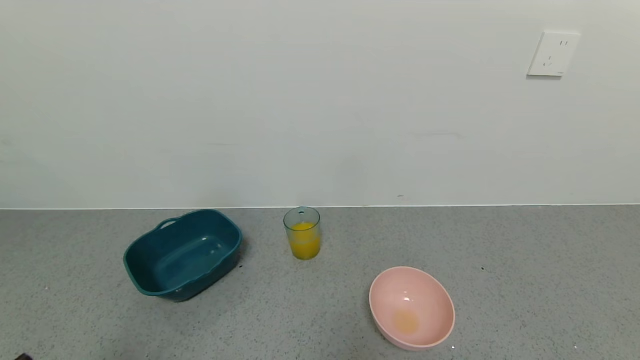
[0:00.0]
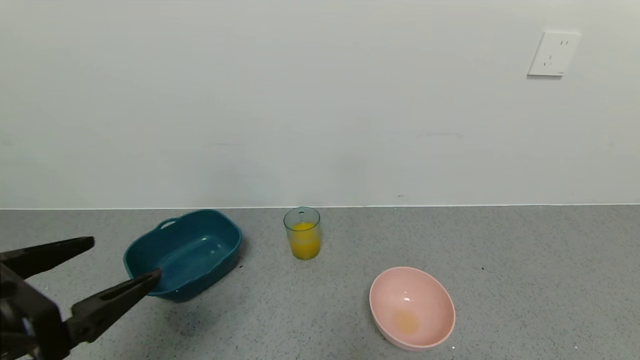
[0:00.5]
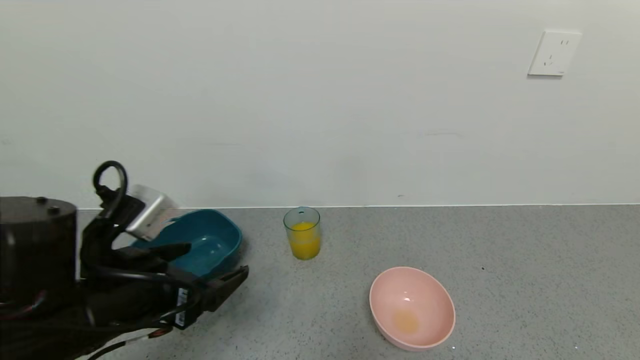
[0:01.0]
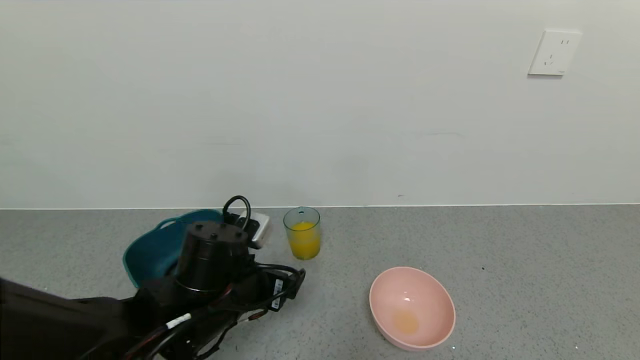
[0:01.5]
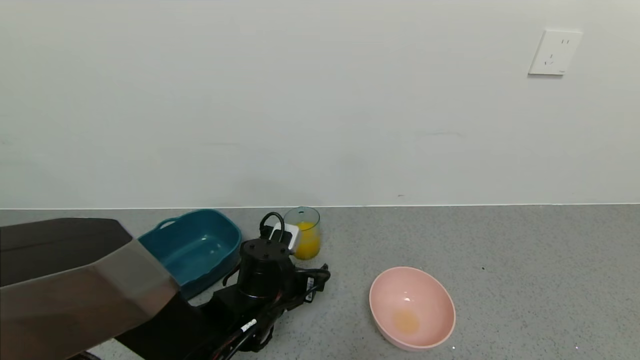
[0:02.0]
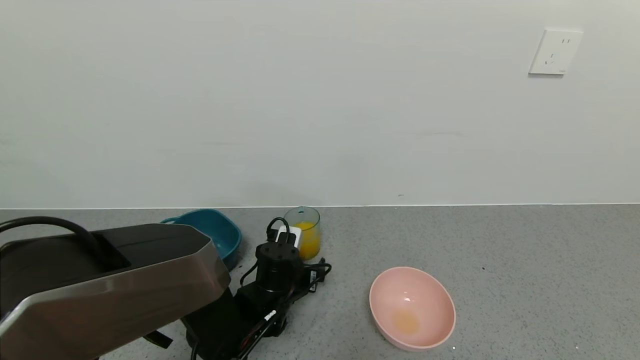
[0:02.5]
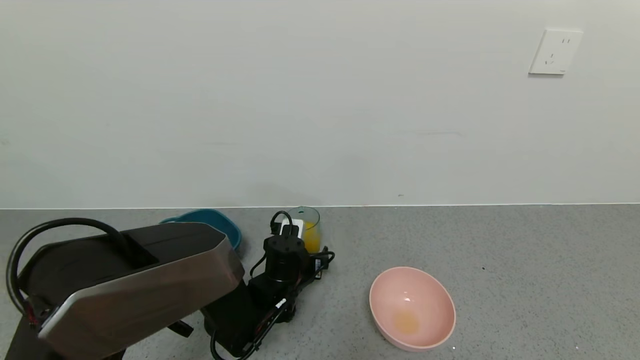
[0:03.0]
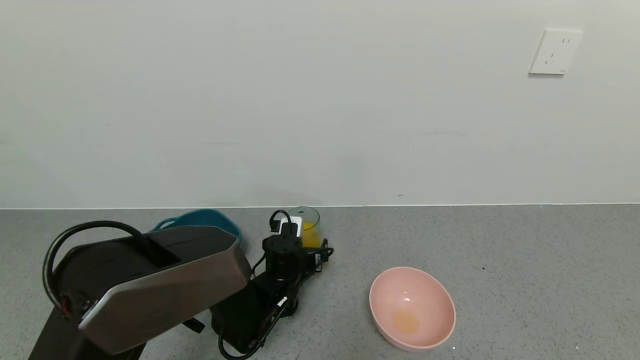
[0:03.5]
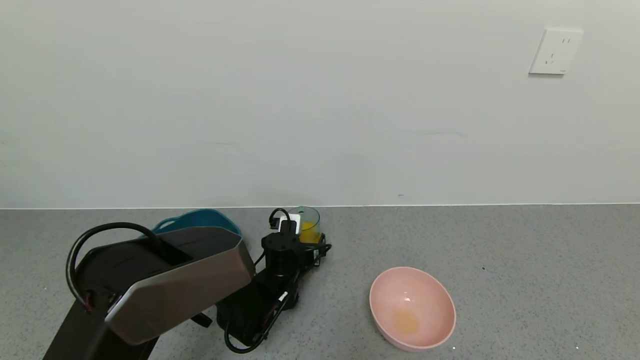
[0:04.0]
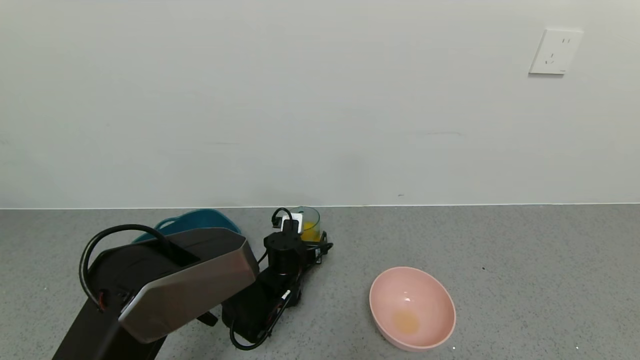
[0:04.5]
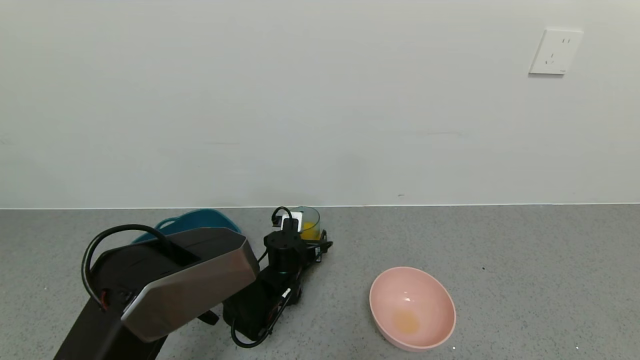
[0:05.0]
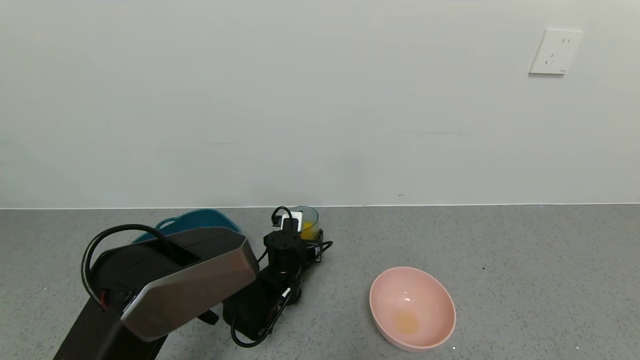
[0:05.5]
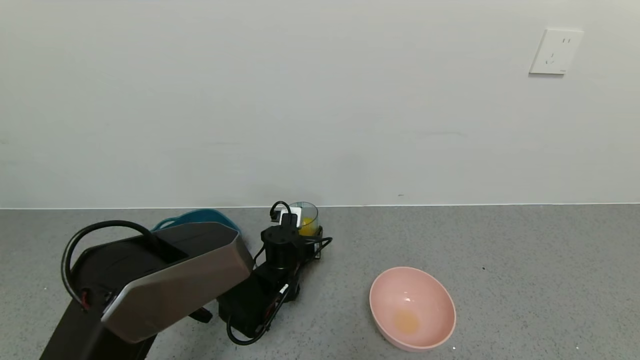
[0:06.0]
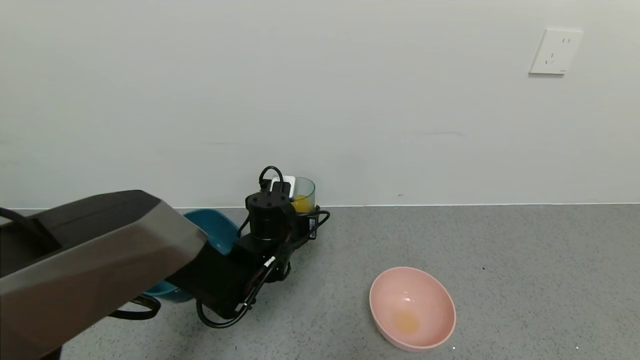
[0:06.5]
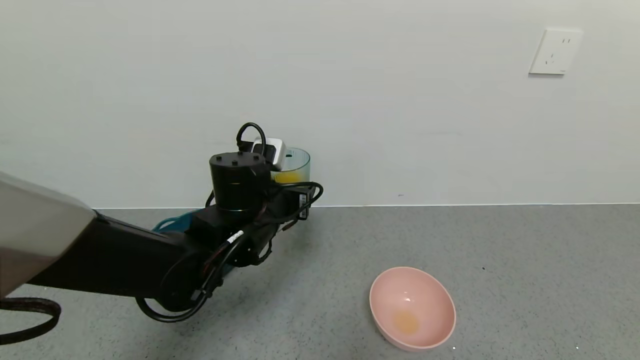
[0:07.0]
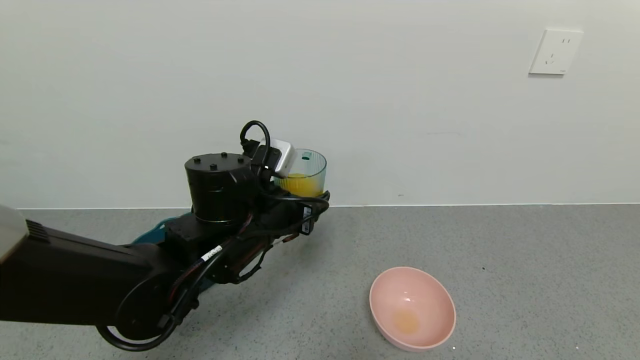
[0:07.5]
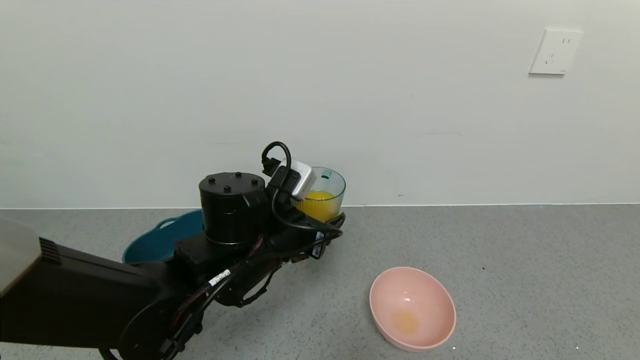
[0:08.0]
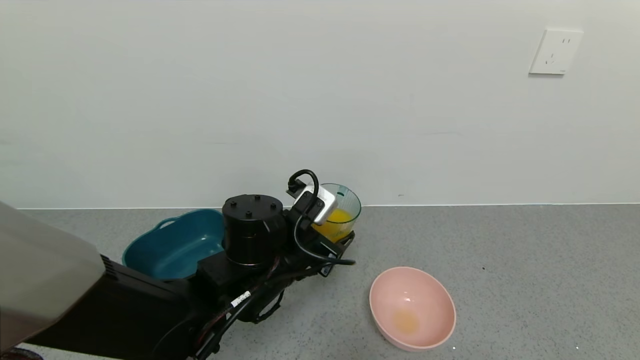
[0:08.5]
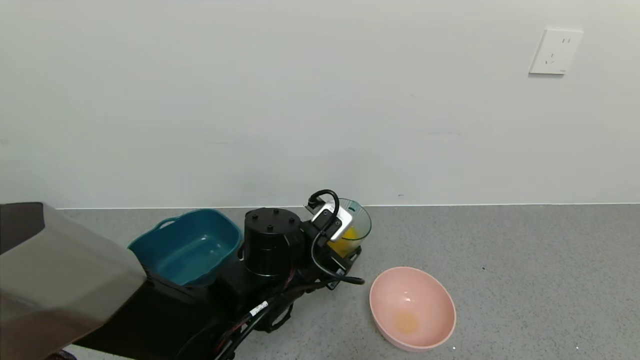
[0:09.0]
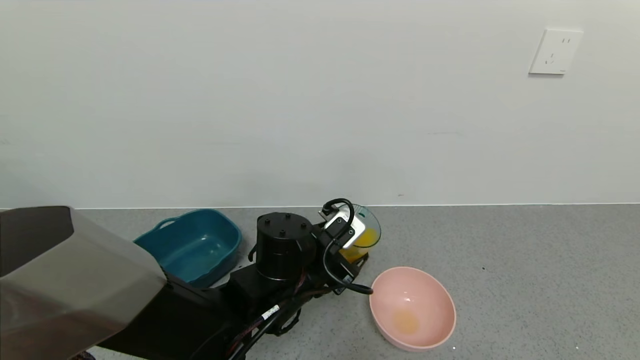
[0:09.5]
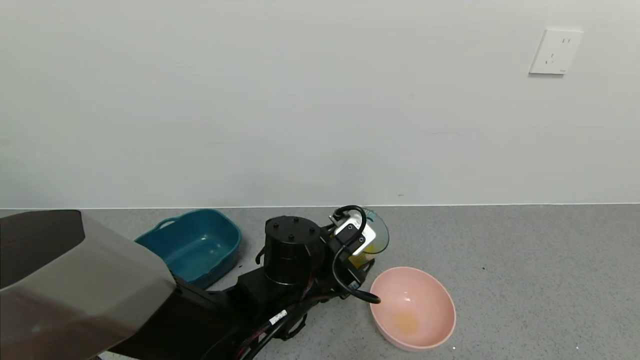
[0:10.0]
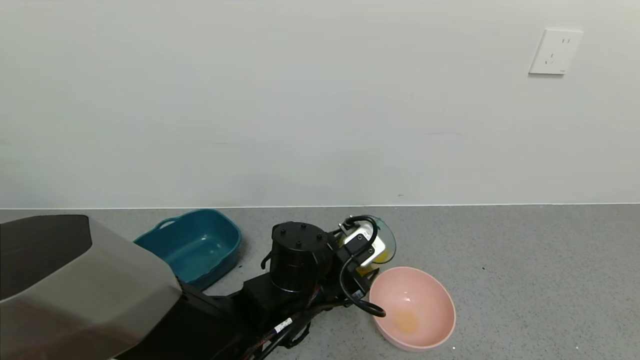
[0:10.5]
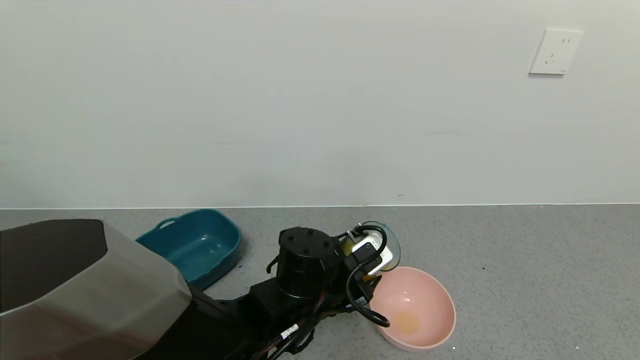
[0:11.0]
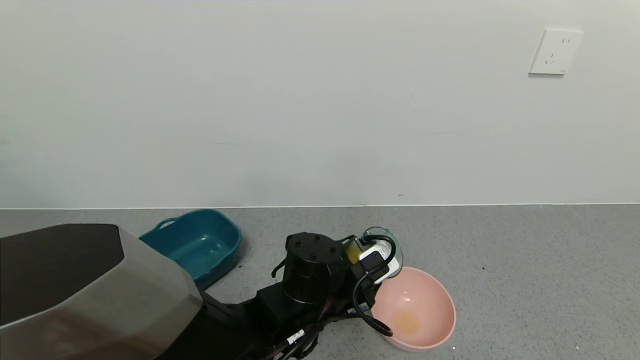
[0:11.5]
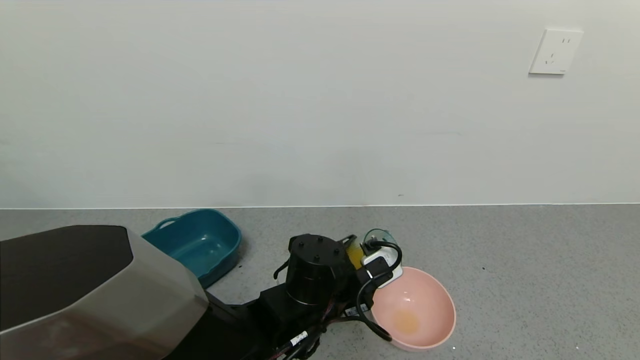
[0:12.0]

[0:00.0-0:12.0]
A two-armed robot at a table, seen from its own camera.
Task of the whole recording: use a gripper to pick up the cup and pour the liquid into a bowl or tray.
Step, 0:00.0 to 0:05.5: Grasp the glass of orange juice with the left gripper.
0:00.0 to 0:02.0: The left gripper travels forward, to the right and downward by roughly 35 cm.
0:02.0 to 0:04.0: The left gripper is displaced forward and downward by approximately 10 cm.
0:04.0 to 0:06.0: The left gripper closes up.
0:06.0 to 0:08.0: The left gripper heads upward and backward, covering about 20 cm.
0:08.0 to 0:10.0: The left gripper heads downward, covering about 5 cm.
0:10.0 to 0:12.0: There are only small adjustments of the grippers.

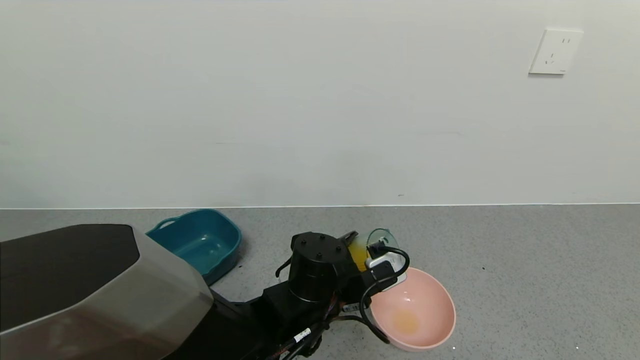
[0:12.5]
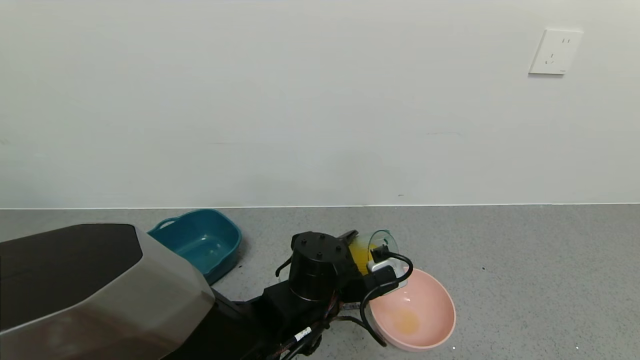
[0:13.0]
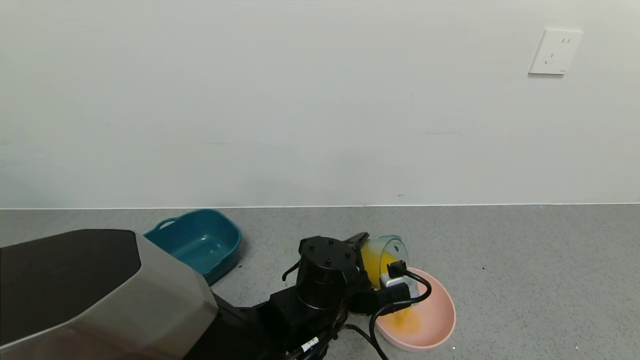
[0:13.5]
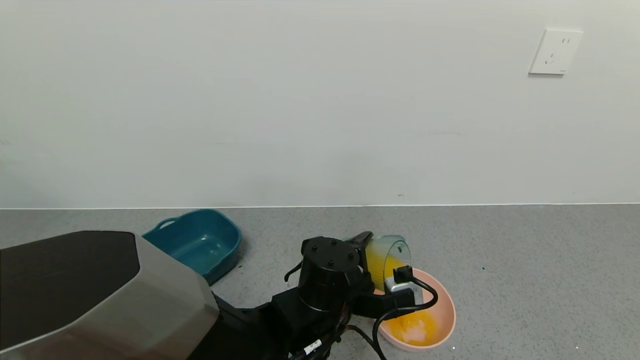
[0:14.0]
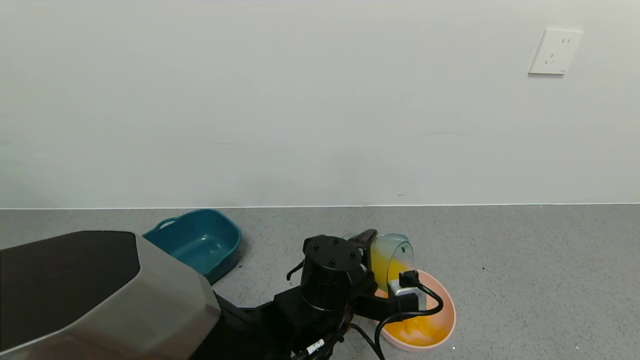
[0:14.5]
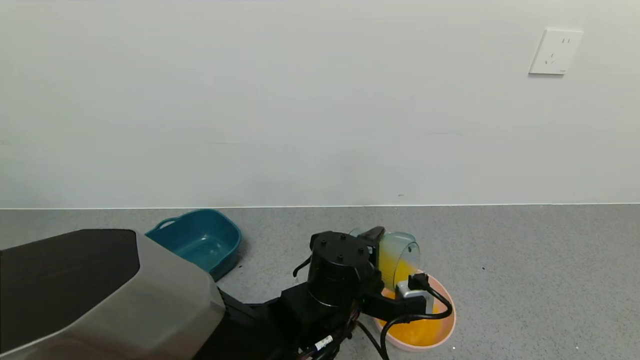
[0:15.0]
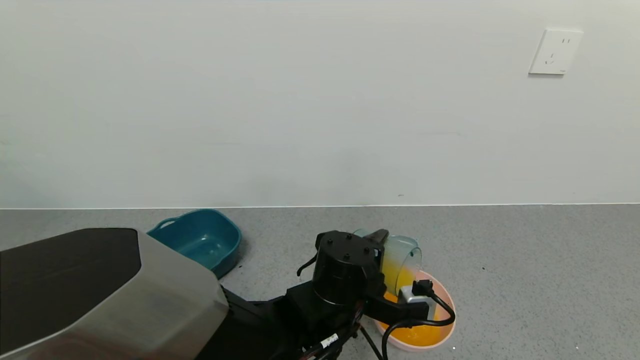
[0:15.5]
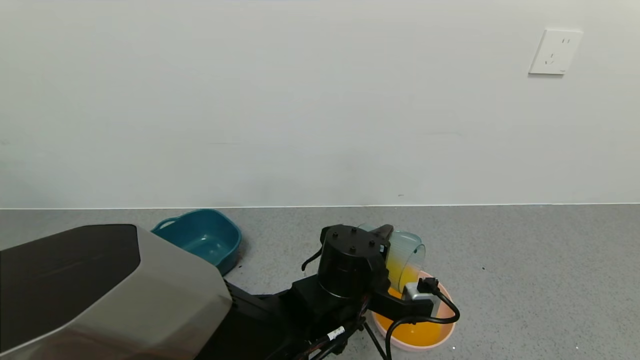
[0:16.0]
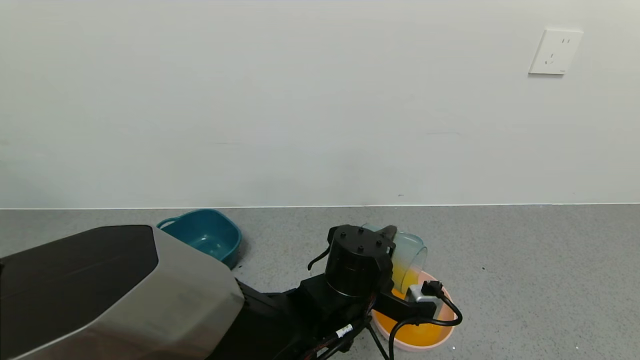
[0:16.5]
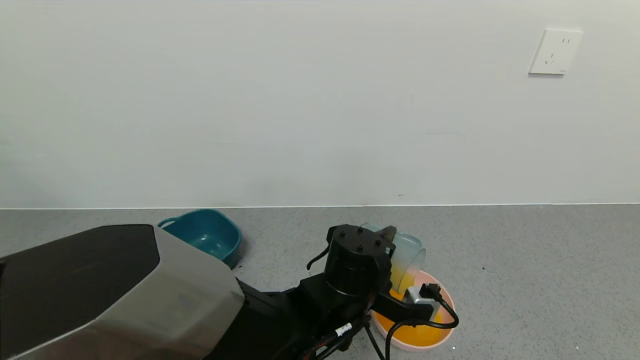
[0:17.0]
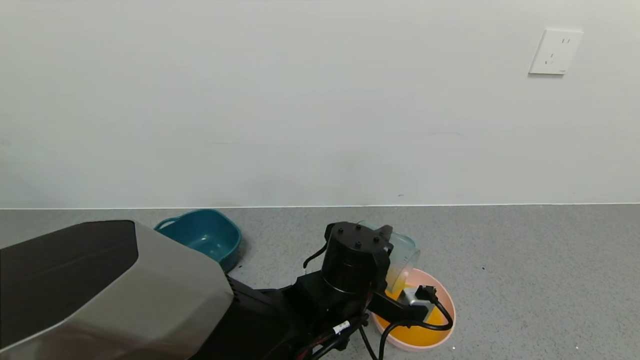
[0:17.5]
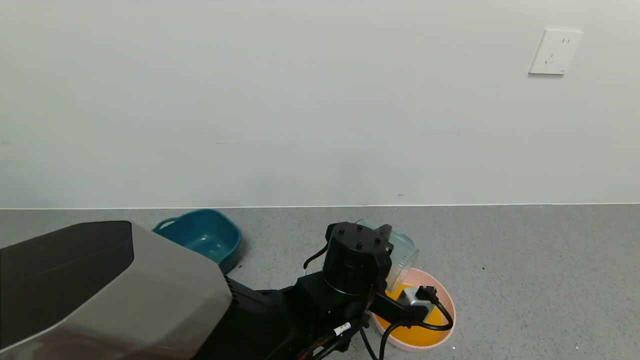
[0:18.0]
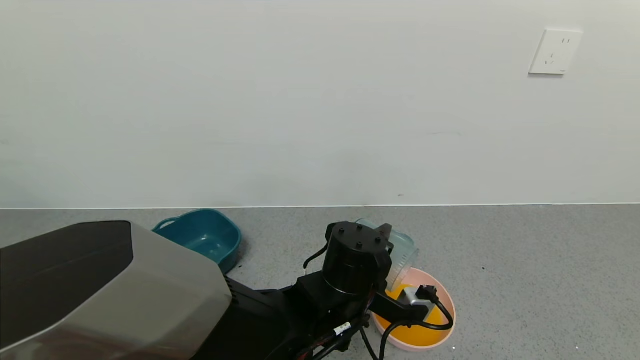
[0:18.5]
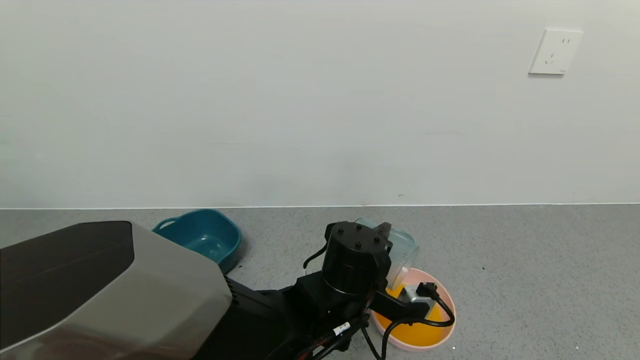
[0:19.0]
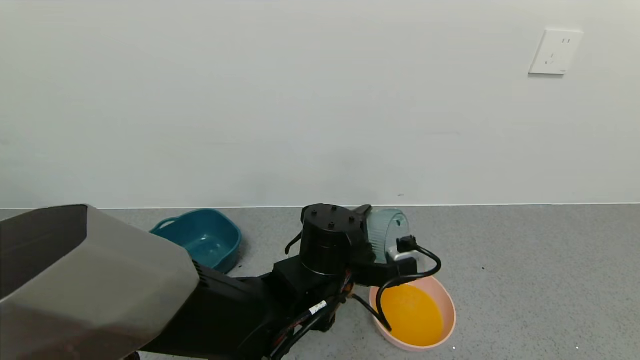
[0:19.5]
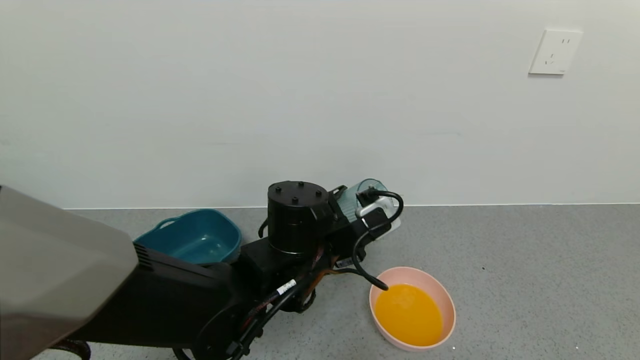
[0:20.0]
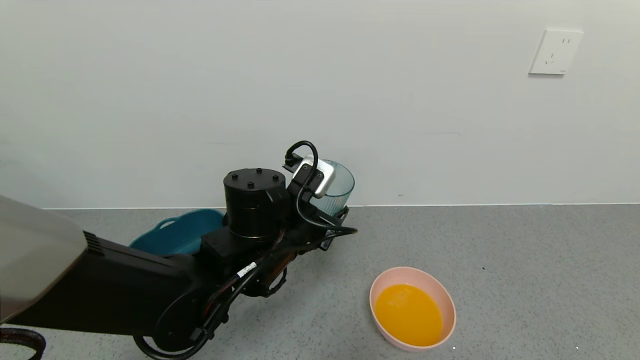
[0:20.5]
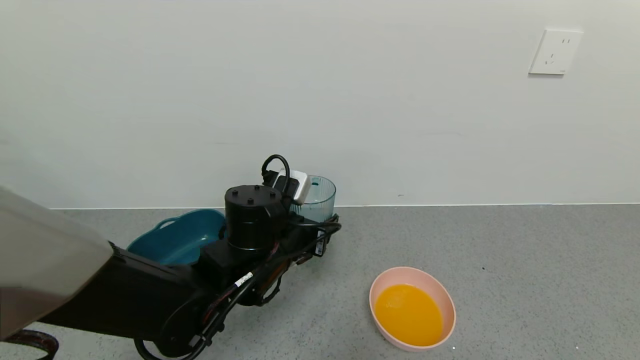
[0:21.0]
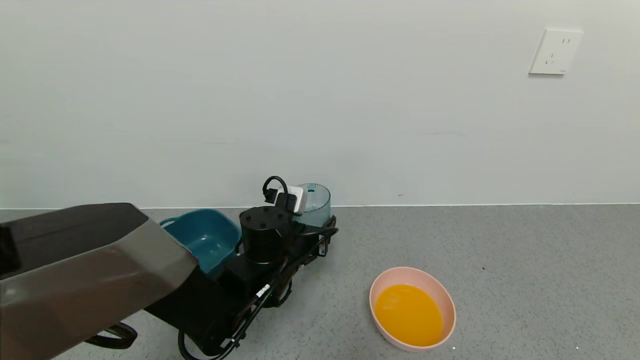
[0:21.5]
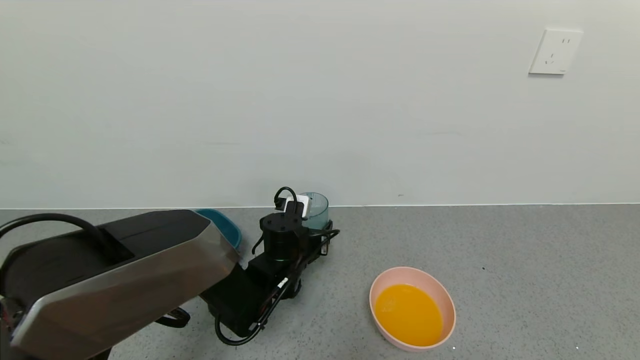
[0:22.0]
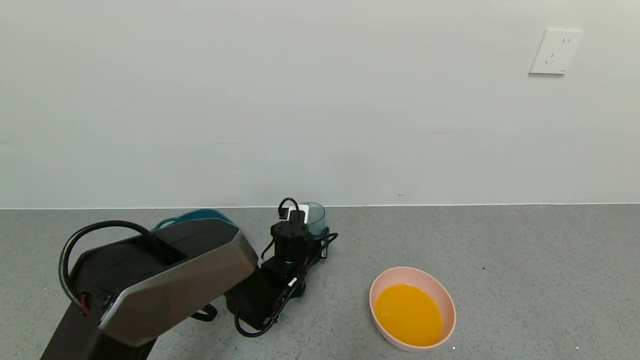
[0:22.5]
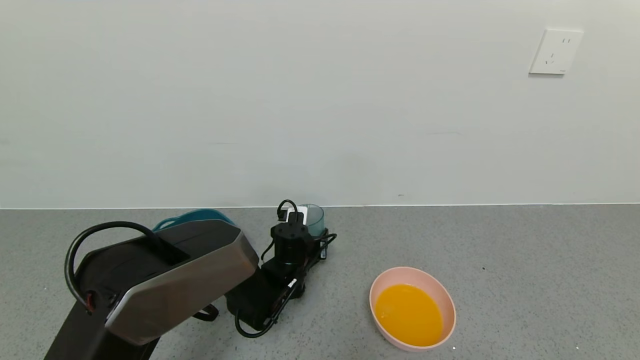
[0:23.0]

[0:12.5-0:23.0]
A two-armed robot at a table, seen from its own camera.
Task of the whole recording: use a gripper to pick up the cup and pour the liquid into a bowl or tray.
Step, 0:12.5 to 0:19.0: Pour the orange juice into the pink bowl with the left gripper.
0:14.5 to 0:16.5: There are only small adjustments of the grippers.
0:16.5 to 0:19.0: The grippers move only a little.
0:19.0 to 0:21.0: The left gripper is displaced to the left by about 10 cm.
0:21.0 to 0:23.0: The left gripper heads downward and forward, covering some 15 cm.
